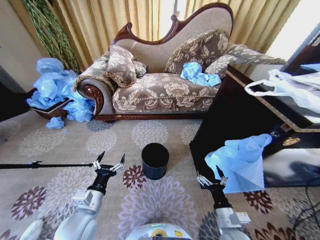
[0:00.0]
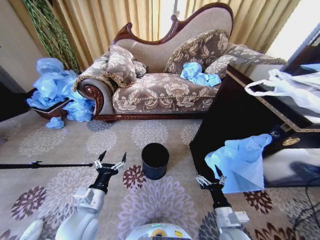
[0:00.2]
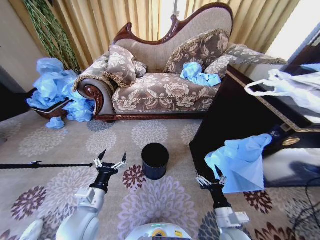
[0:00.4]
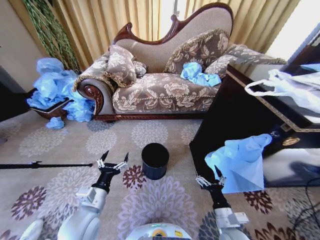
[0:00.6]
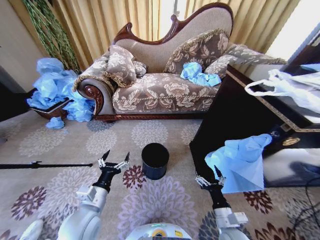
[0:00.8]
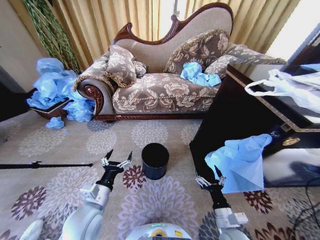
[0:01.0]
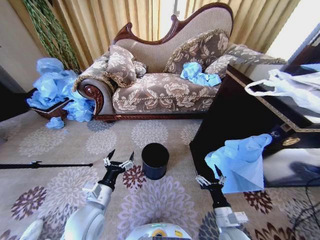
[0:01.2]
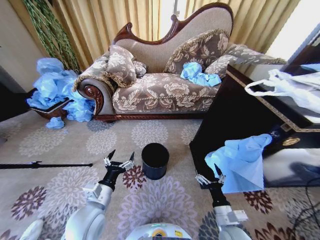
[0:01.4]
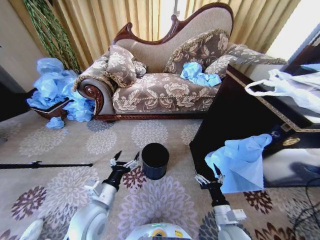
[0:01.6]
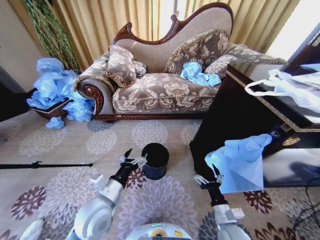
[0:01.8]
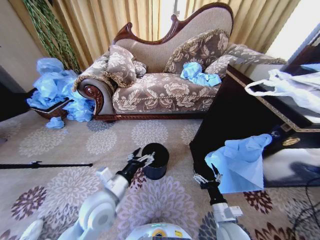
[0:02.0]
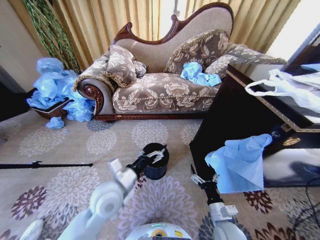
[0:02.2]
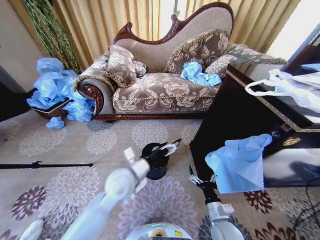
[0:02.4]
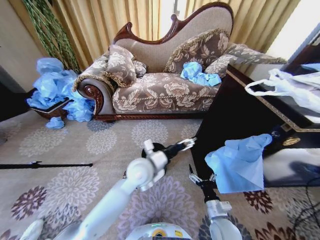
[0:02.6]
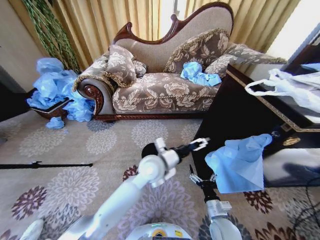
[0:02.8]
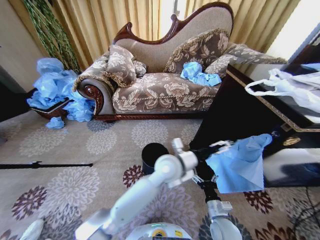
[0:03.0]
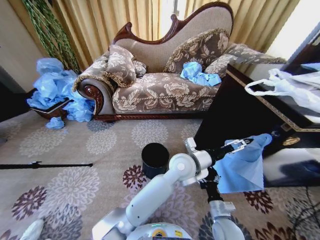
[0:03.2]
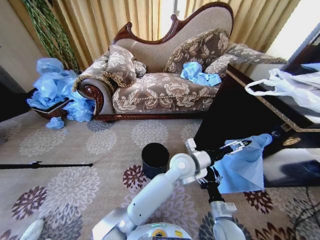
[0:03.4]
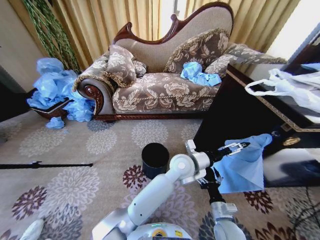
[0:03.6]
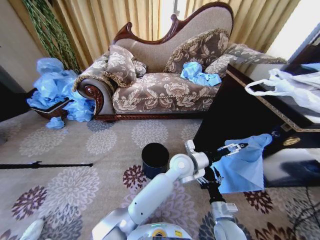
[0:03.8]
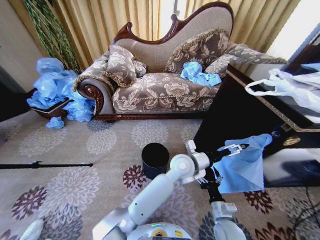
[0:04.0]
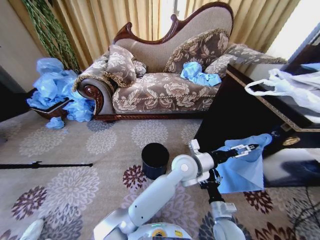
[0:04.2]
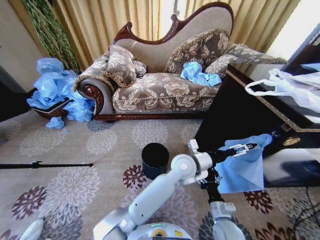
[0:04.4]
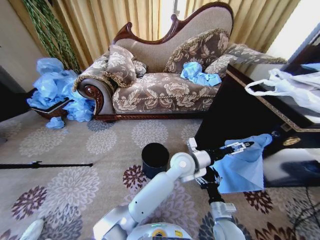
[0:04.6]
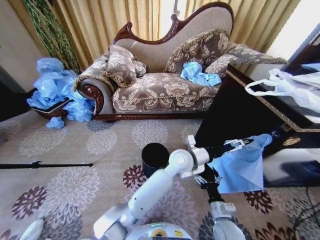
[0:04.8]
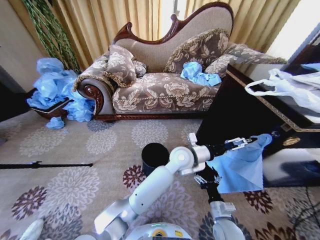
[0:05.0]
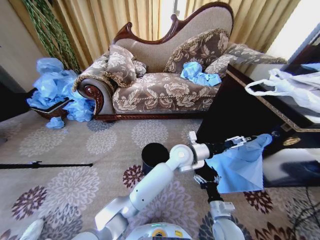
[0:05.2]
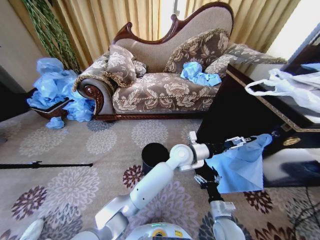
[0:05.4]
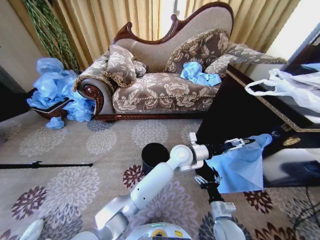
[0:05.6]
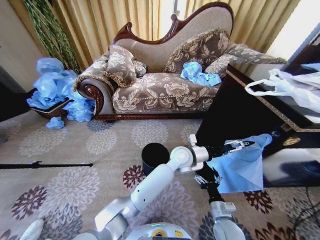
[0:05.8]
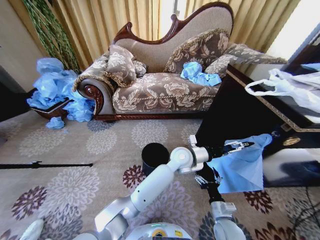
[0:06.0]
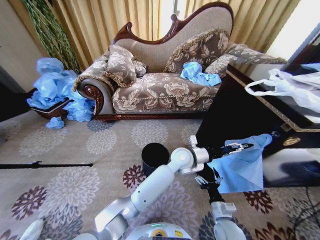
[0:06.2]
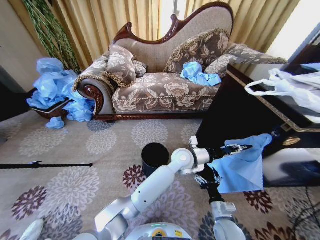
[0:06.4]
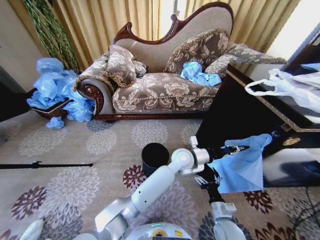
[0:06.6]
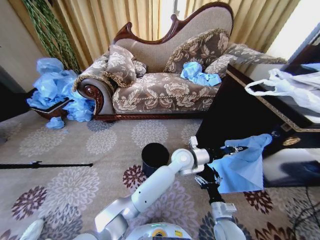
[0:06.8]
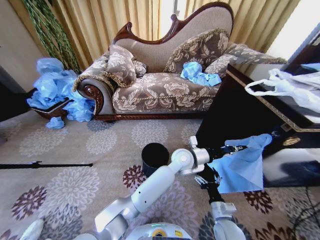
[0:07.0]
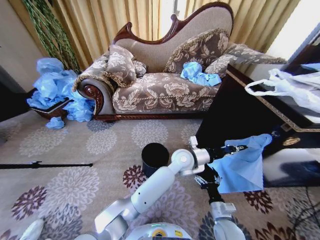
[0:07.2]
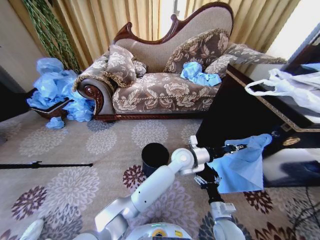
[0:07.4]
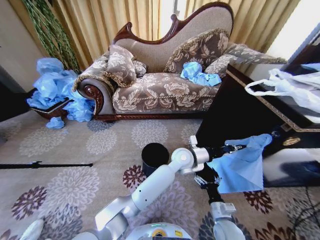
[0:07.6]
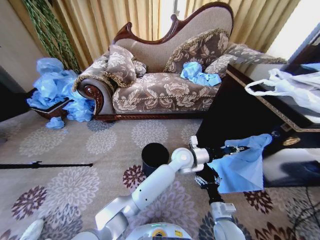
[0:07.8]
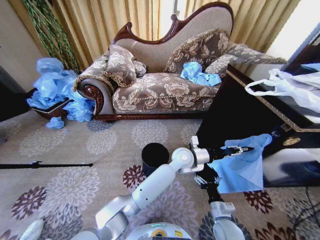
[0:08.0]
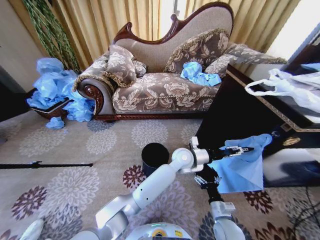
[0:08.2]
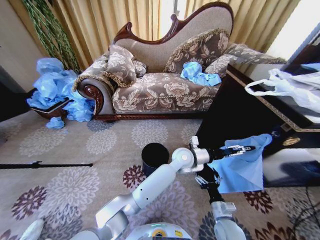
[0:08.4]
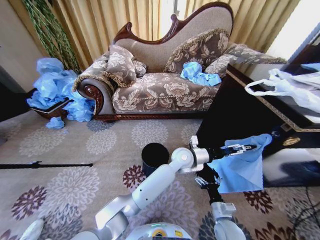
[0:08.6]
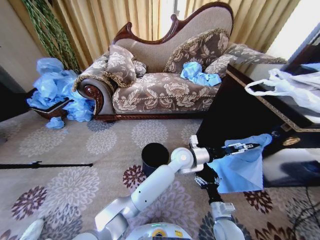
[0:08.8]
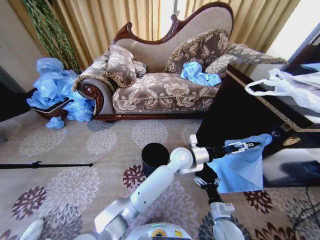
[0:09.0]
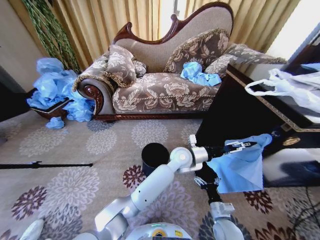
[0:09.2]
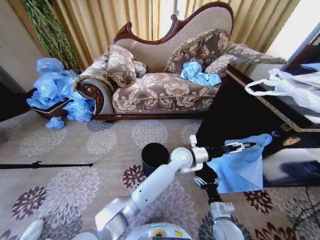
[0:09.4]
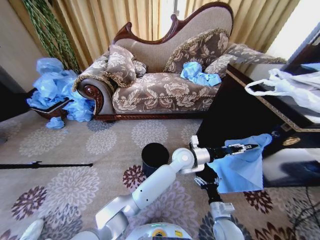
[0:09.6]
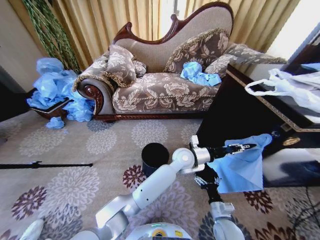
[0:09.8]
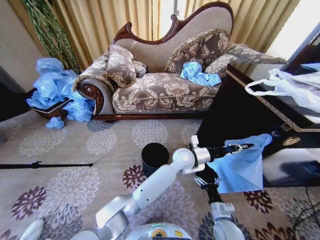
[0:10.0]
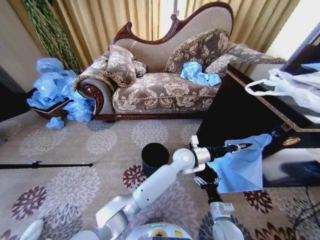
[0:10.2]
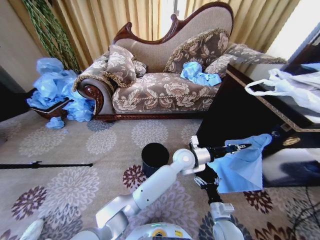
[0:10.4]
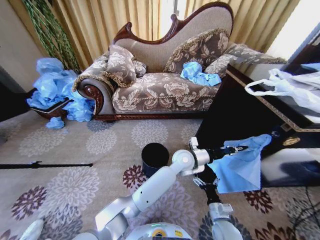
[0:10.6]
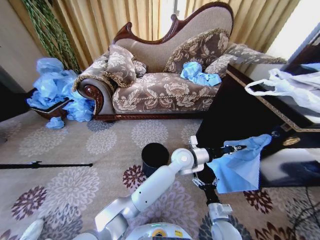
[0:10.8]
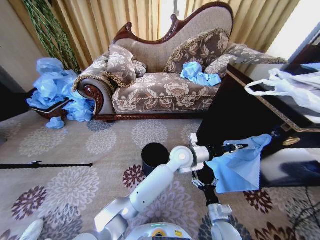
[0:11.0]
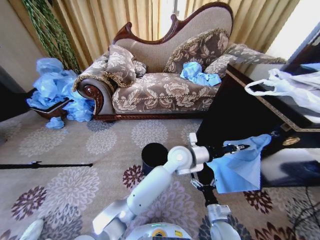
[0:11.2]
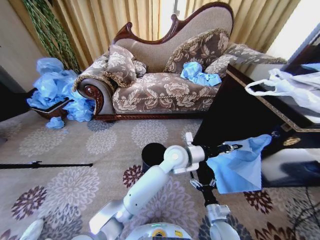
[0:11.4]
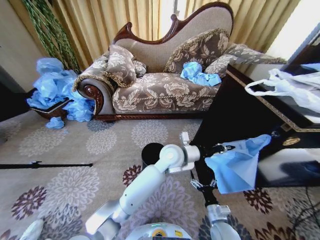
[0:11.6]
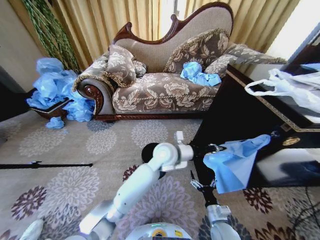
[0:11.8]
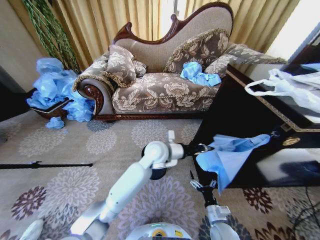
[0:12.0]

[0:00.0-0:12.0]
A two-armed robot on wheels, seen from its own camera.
Task of the whole recording: Place a garbage bag over the trash bin.
0:01.6 to 0:03.0: The left gripper heads to the right and forward, covering roughly 30 cm.
0:03.0 to 0:04.4: The left gripper shifts some 5 cm to the right.
0:04.4 to 0:06.0: The left gripper shifts by about 5 cm.
0:06.0 to 0:07.6: The left gripper closes.
0:07.6 to 0:09.0: The left gripper opens.
0:09.0 to 0:10.4: The left gripper closes its fingers.
0:10.4 to 0:12.0: The left gripper shifts roughly 15 cm to the left and upward.

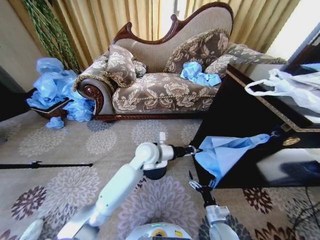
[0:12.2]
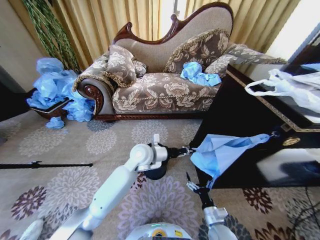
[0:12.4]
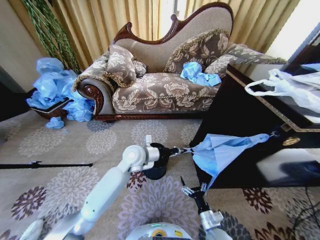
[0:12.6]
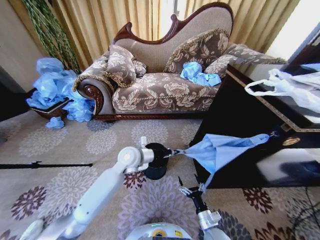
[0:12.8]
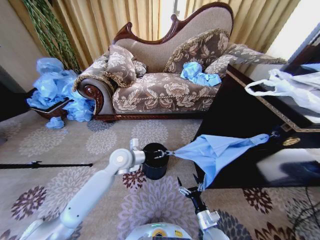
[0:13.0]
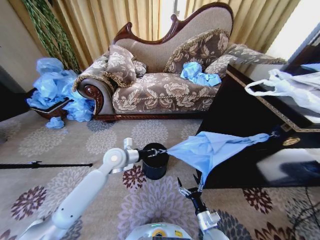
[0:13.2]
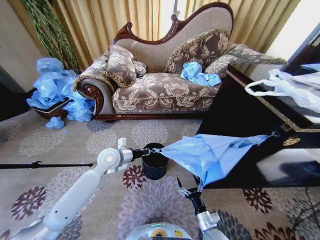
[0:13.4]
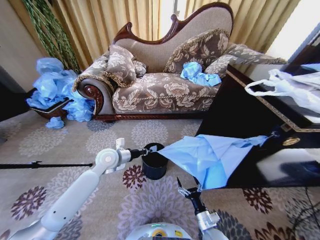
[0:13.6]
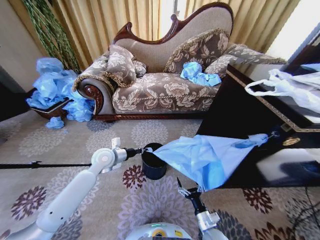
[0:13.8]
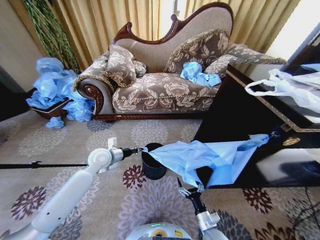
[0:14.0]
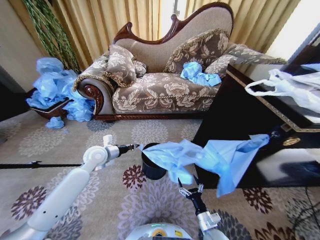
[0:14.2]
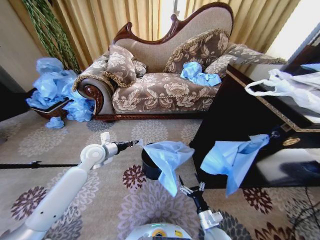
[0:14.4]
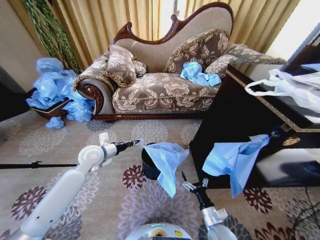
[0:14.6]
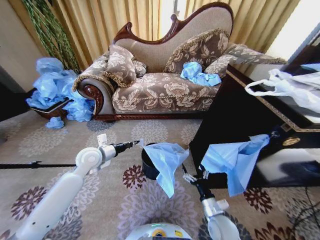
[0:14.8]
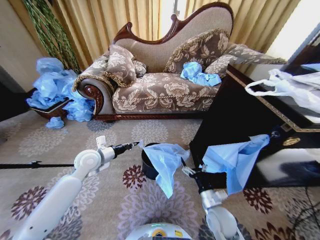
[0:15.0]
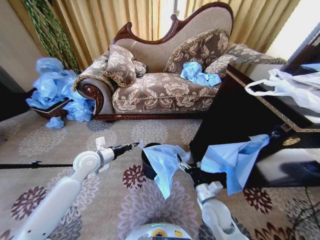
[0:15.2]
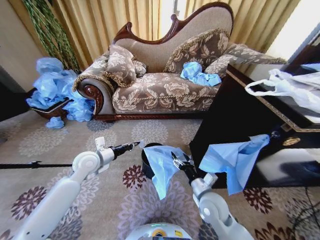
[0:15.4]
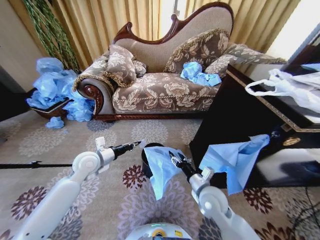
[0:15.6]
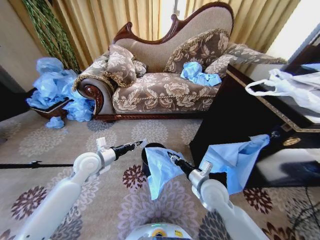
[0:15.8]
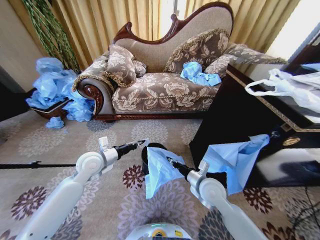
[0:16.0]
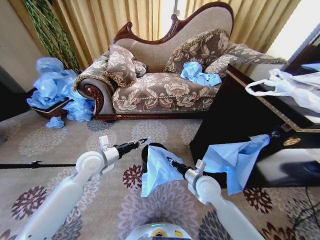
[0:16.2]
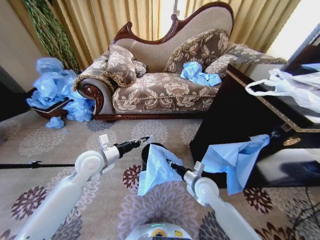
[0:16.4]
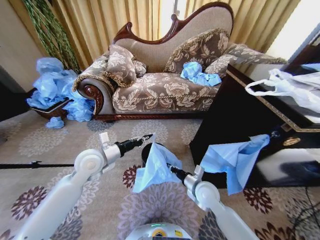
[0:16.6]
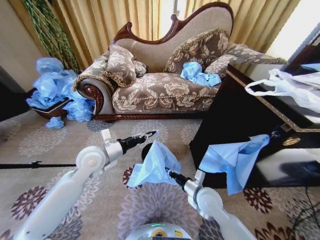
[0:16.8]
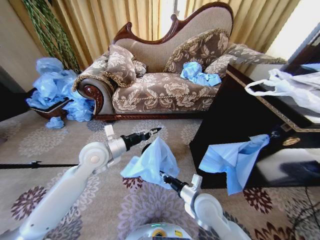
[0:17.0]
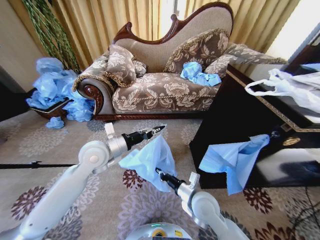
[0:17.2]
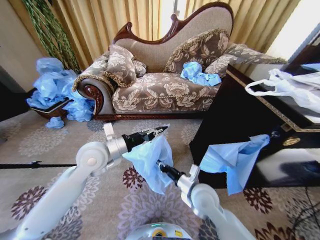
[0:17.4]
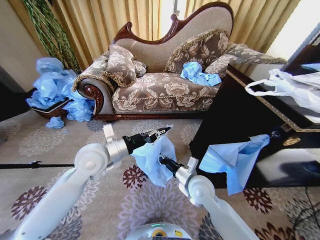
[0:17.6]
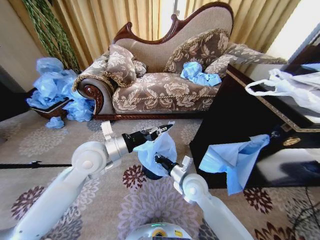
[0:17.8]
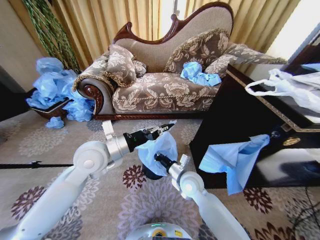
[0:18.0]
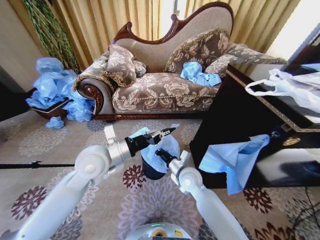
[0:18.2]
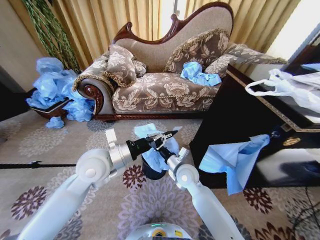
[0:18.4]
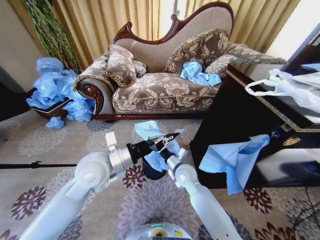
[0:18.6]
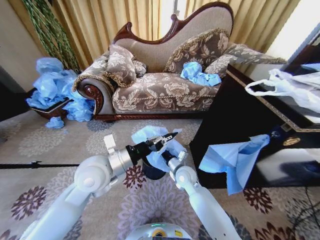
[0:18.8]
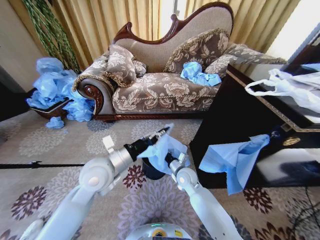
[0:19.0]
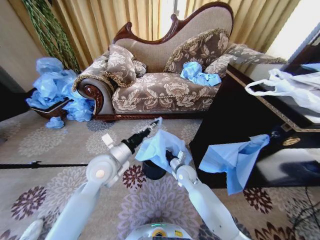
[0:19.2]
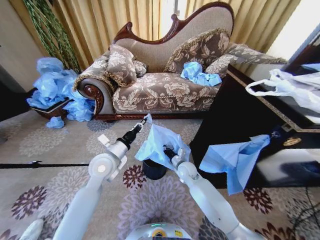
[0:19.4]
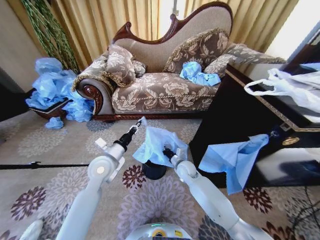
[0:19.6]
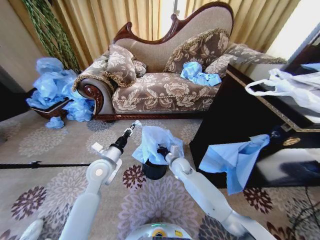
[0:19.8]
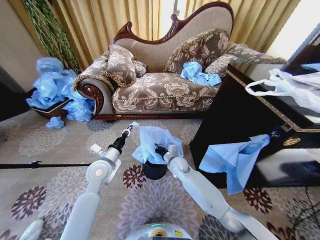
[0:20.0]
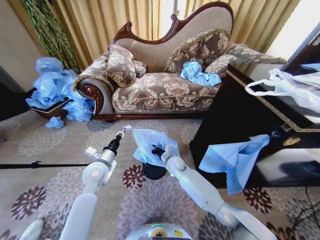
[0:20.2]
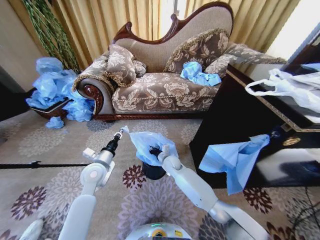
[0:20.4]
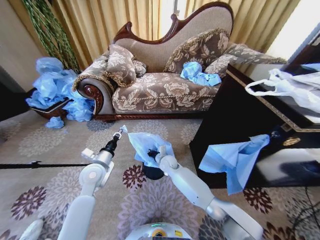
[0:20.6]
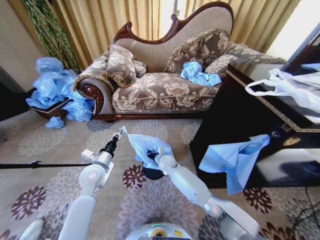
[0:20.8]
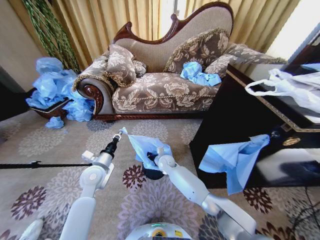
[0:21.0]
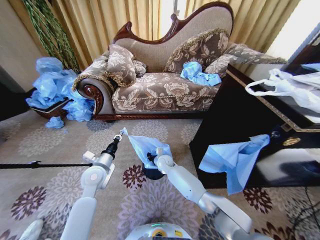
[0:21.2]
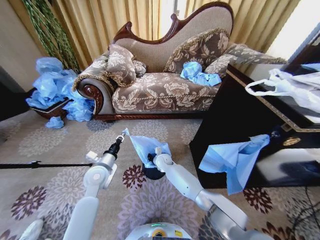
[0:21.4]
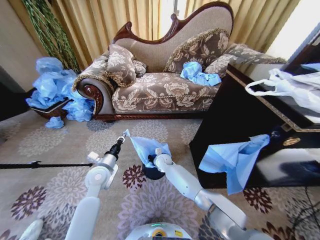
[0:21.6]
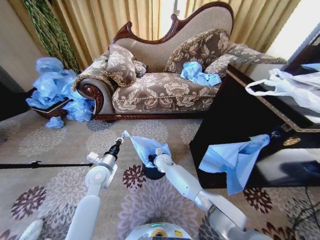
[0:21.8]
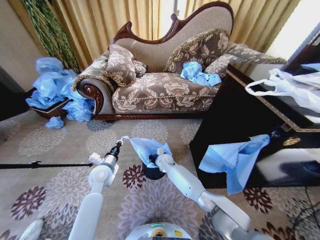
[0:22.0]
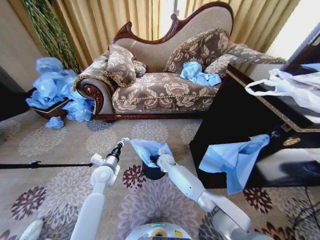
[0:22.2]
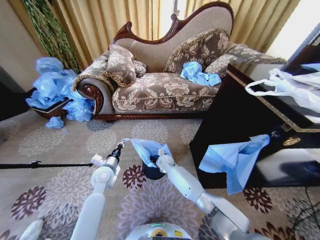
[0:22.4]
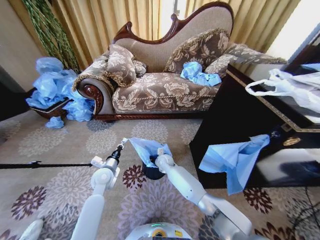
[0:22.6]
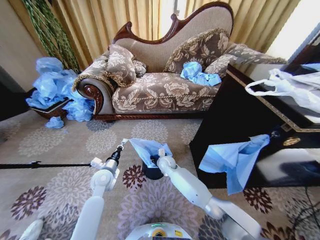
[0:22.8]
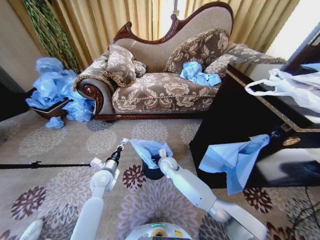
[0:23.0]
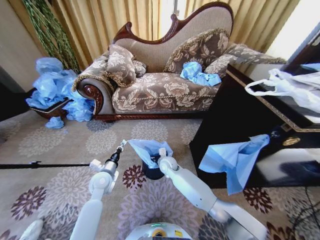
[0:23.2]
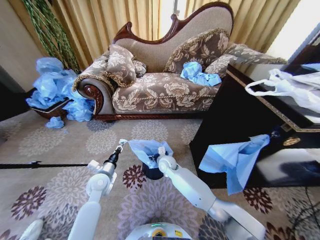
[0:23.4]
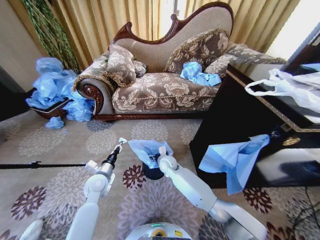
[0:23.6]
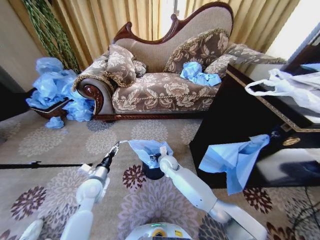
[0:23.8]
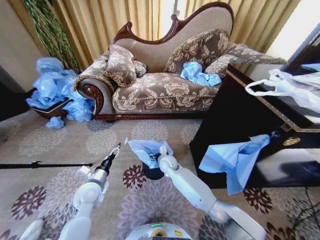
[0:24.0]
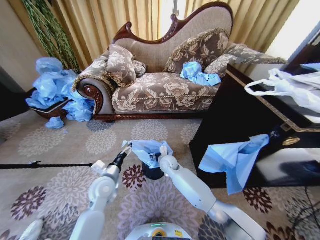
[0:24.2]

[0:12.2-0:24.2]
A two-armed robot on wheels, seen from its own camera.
Task of the whole recording: Place a garbage bag over the trash bin.
0:12.2 to 0:13.8: The left gripper travels to the left by approximately 20 cm.
0:13.8 to 0:15.2: The left gripper ends up about 5 cm from where it was. Meanwhile the right gripper is displaced upward and forward by some 15 cm.
0:15.2 to 0:16.6: The right gripper heads forward, covering roughly 5 cm, and closes; the left gripper changes place by about 5 cm.
0:16.6 to 0:18.2: The right gripper goes roughly 5 cm to the left, while the left gripper is displaced upward and to the right by roughly 10 cm.
0:18.2 to 0:19.8: The right gripper travels forward and downward by approximately 10 cm. The left gripper travels downward by approximately 10 cm.
0:19.8 to 0:21.2: The right gripper travels to the left and forward by some 10 cm. The left gripper ends up some 5 cm from where it was.
0:21.2 to 0:22.6: The left gripper shifts some 5 cm downward.
0:22.6 to 0:24.2: The right gripper moves approximately 5 cm, and opens up. The left gripper is displaced backward by roughly 5 cm, and opens.
